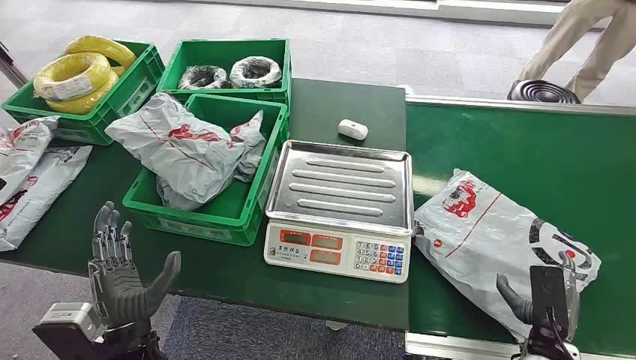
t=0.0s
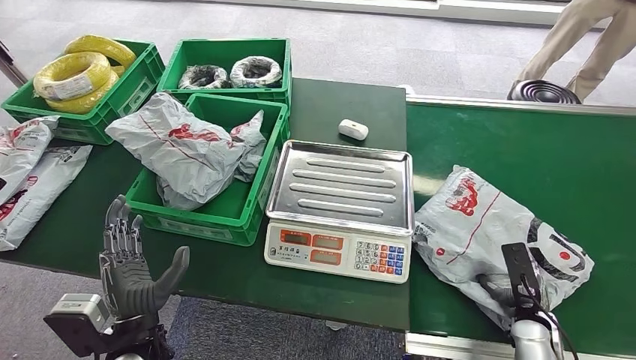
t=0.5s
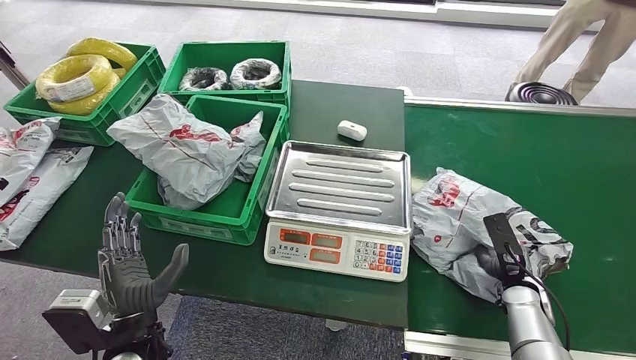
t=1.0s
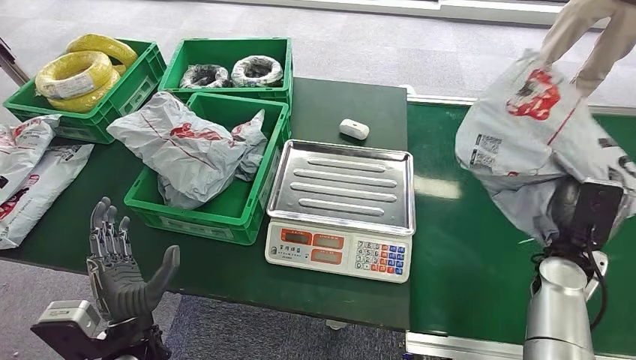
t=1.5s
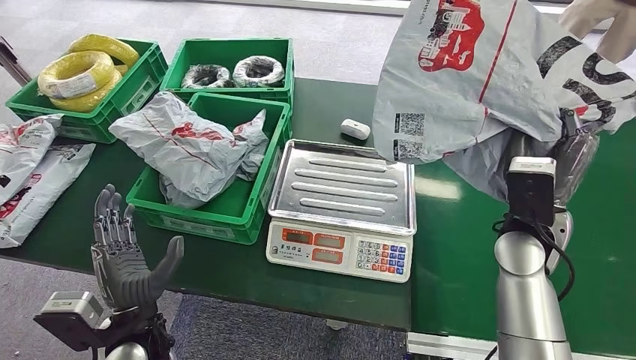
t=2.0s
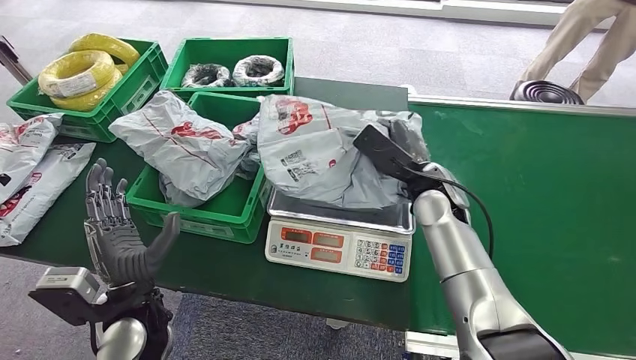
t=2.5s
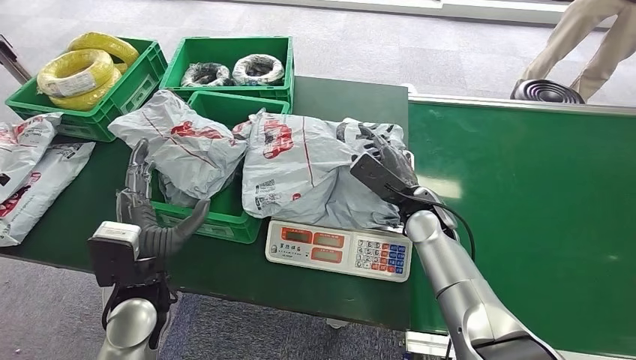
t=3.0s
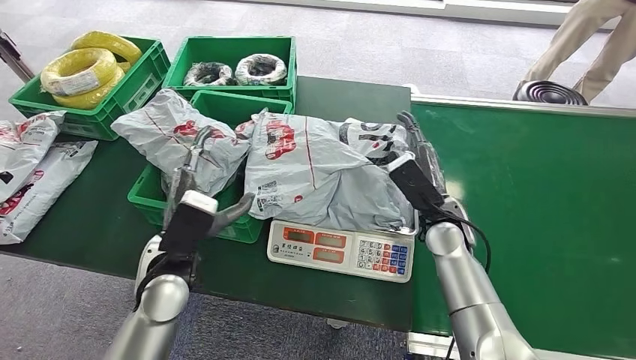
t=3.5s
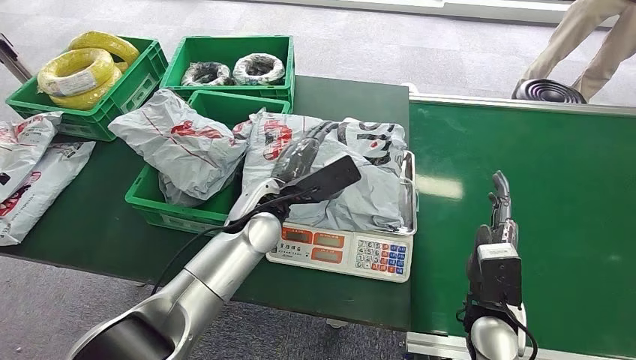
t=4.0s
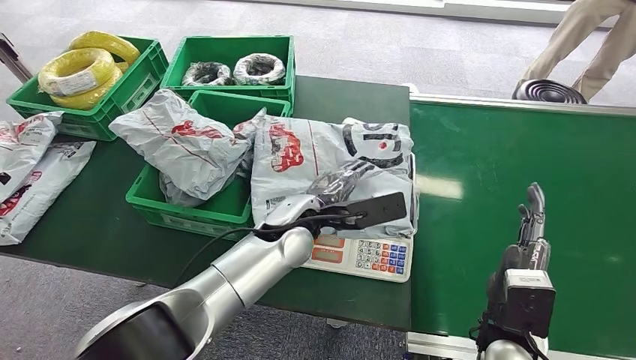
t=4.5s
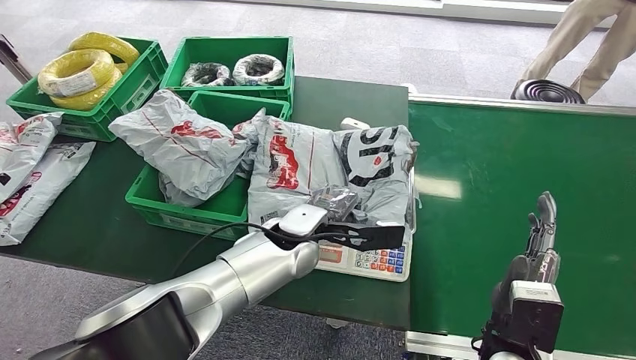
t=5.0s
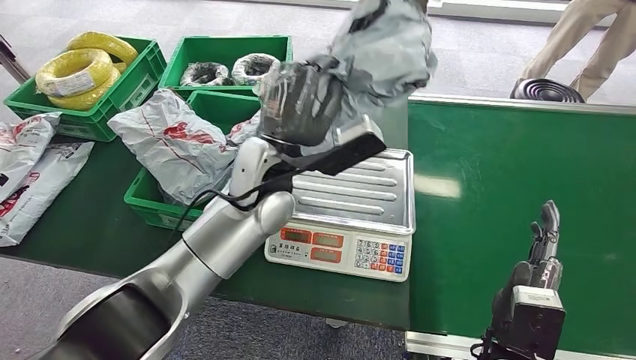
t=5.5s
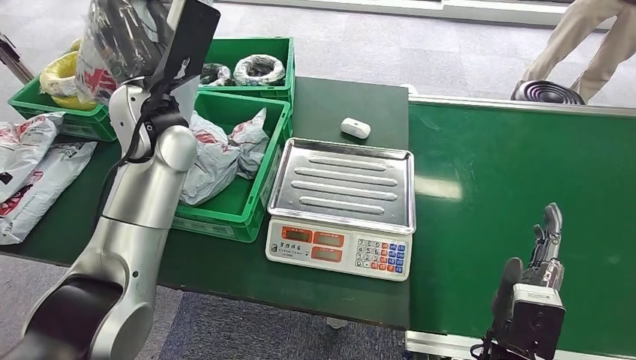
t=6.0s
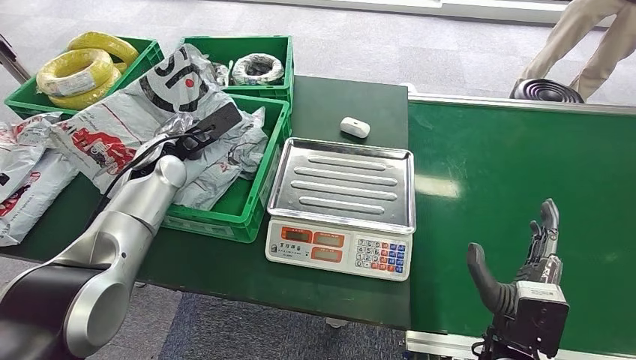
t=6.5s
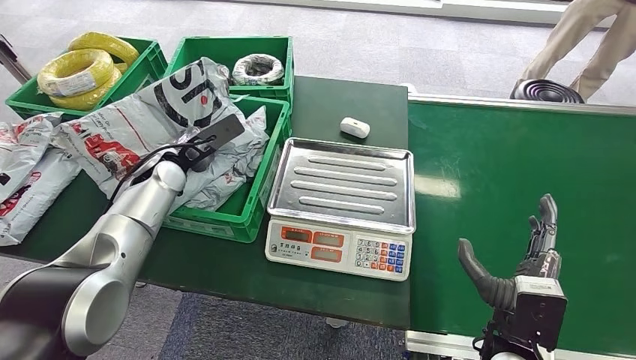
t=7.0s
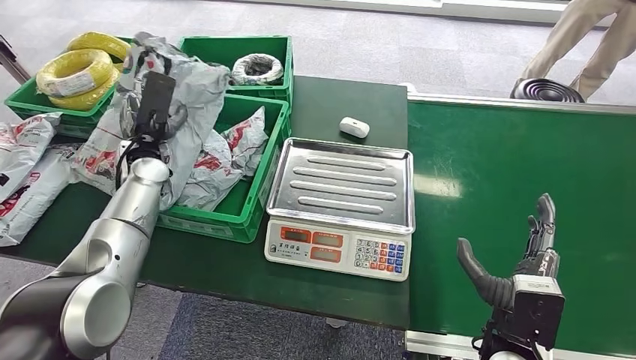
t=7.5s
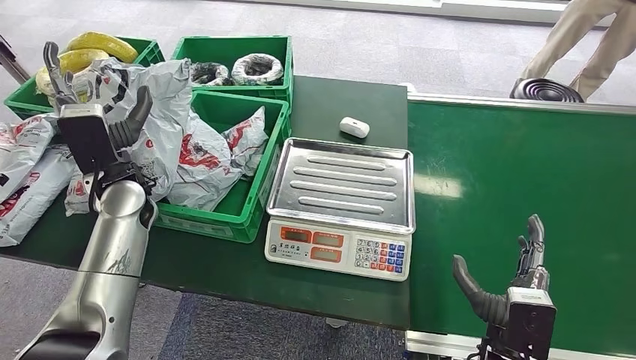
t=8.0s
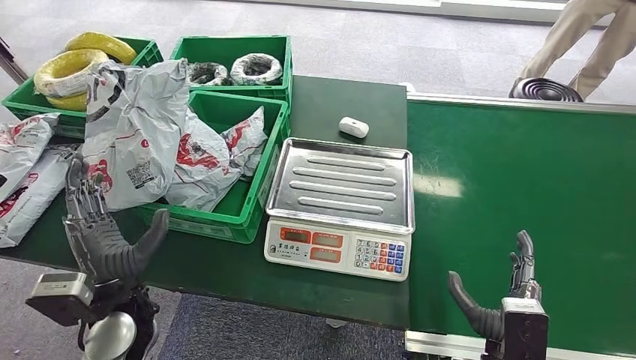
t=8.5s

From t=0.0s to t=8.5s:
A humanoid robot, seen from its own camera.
Step, from t=0.0s to t=1.5s: Pick up the package from the conveyor belt.
Step, from t=2.0s to t=3.5s: Place the package onto the inbound machine.
Step, from t=4.0s to t=5.5s: Pick up the package from the inbound machine.
Step, from t=6.0s to t=8.0s: Place the package into the parcel locker.
